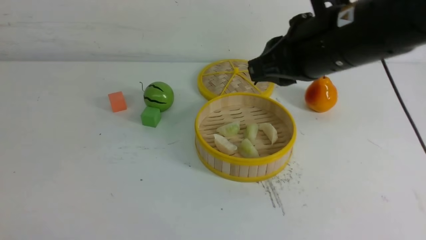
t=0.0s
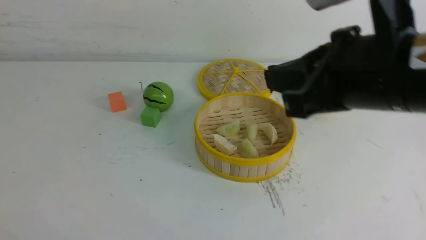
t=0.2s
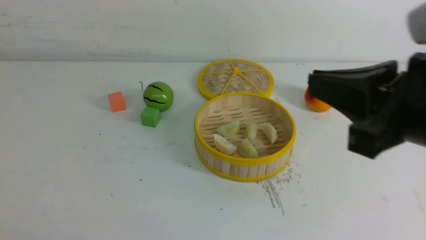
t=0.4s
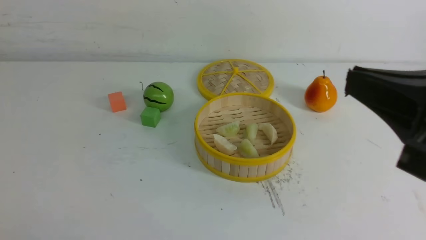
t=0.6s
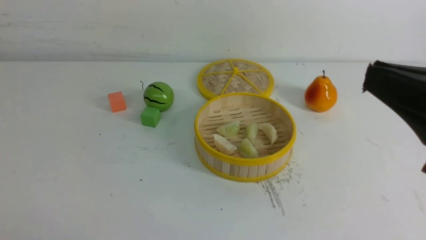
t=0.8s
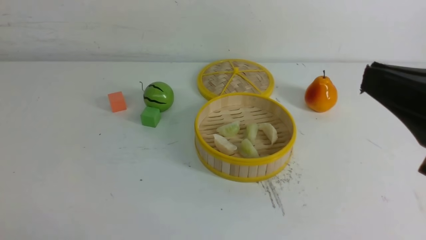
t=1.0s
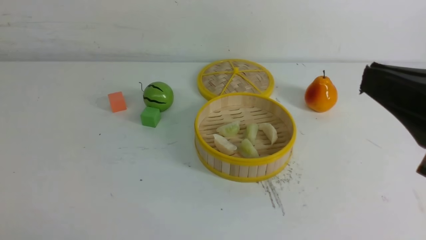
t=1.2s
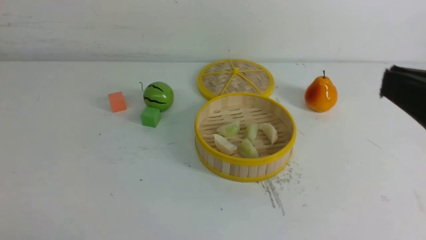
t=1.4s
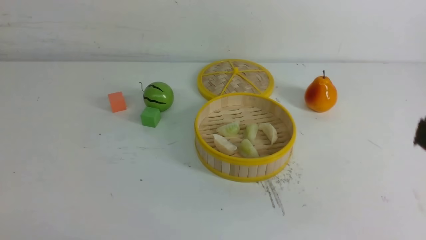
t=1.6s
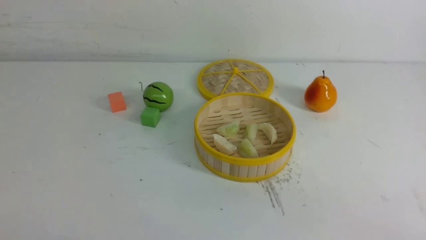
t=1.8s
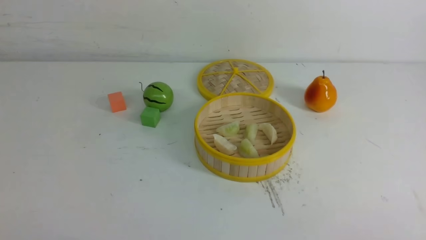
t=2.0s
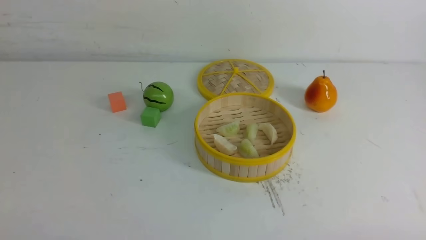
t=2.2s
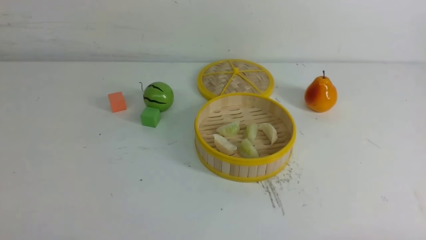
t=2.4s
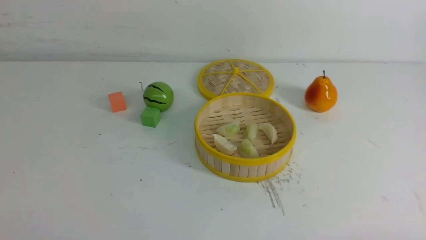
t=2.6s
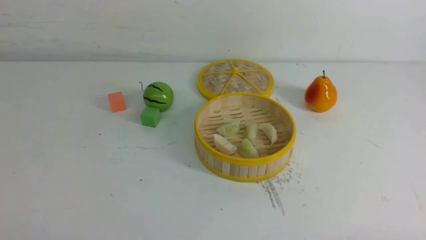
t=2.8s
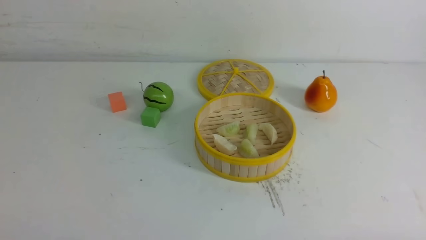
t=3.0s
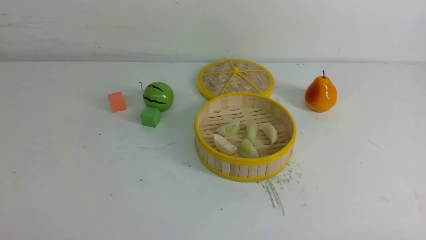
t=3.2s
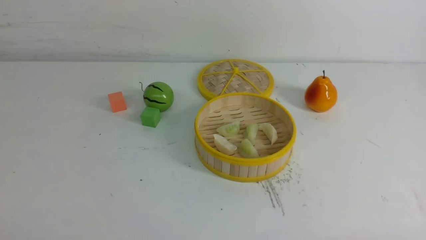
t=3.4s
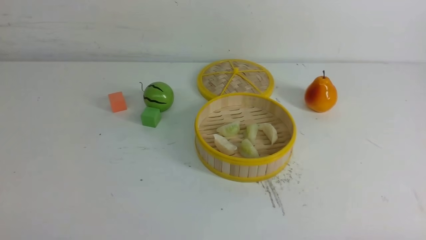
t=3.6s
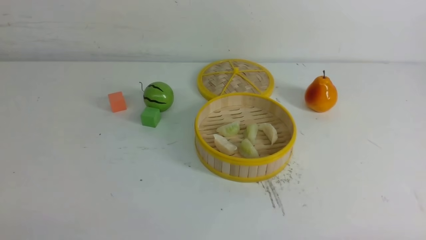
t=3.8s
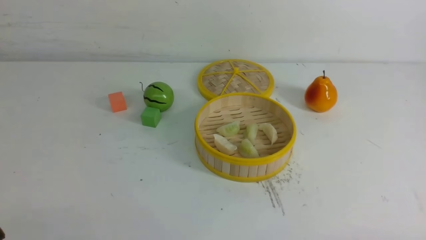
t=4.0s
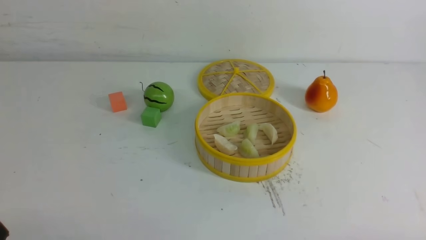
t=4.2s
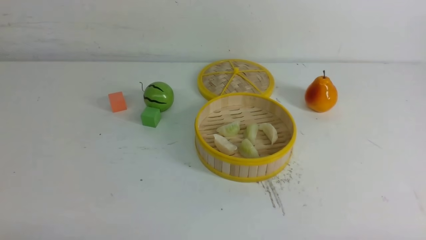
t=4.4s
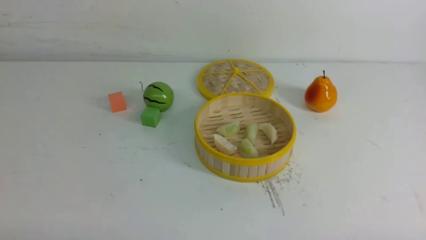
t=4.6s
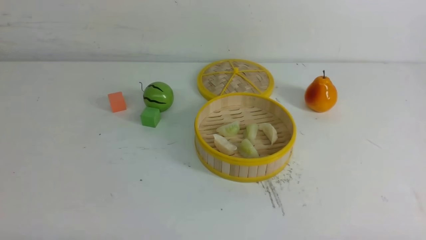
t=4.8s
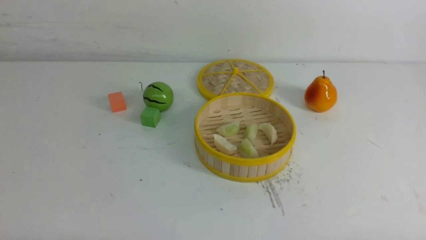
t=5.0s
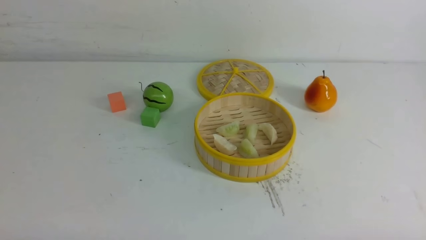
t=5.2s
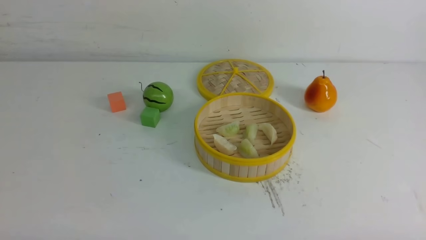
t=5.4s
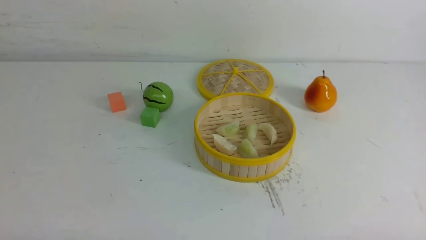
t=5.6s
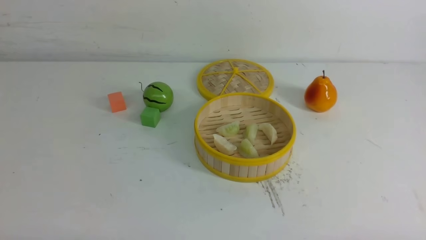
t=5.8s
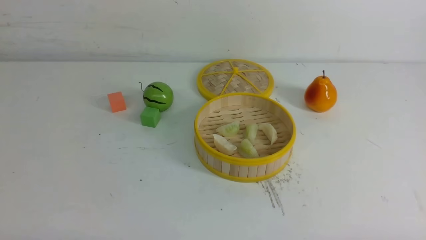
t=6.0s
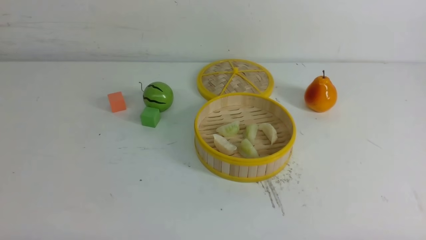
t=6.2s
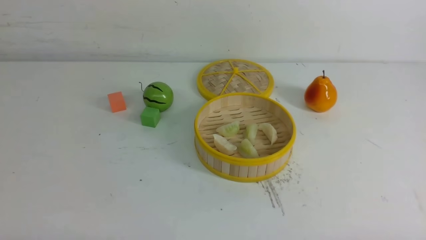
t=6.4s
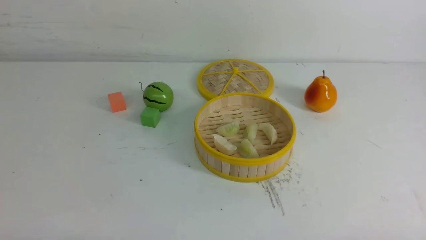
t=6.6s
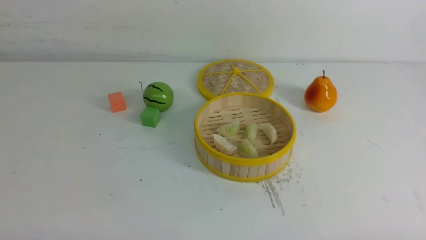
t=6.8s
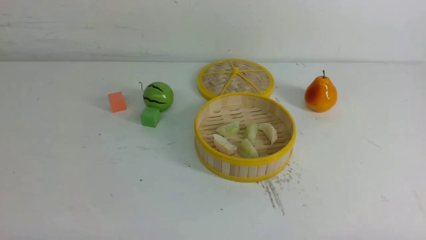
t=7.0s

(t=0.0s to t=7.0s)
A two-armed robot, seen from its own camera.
Task of the whole recording: put the dumplings into the steamer on the white table.
t=0.0s - t=1.4s: The right gripper travels backward and to the right by approximately 20 cm.
t=1.4s - t=2.8s: The right gripper moves downward and to the right, some 25 cm.
t=5.6s - t=7.0s: The two grippers keep their place.
